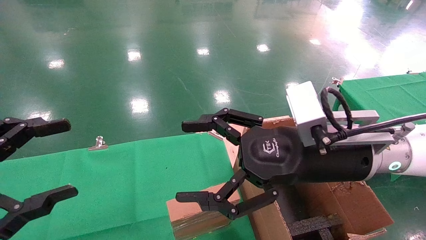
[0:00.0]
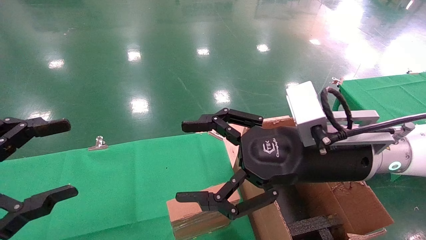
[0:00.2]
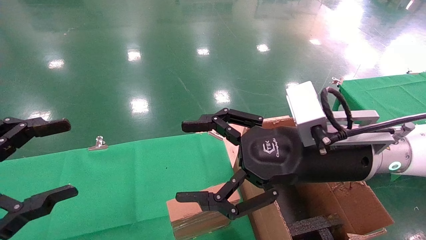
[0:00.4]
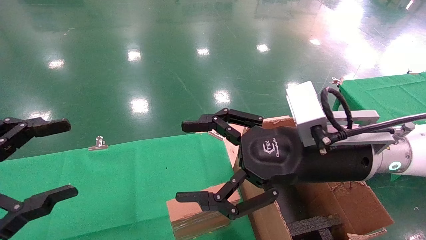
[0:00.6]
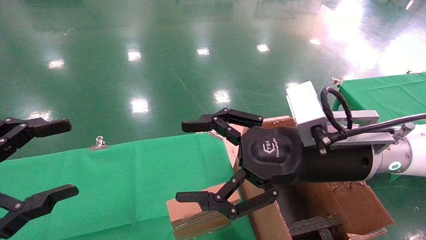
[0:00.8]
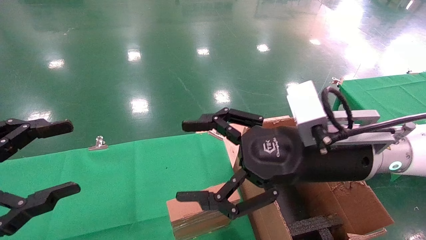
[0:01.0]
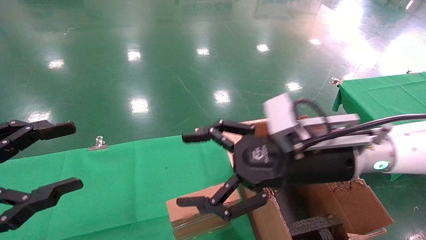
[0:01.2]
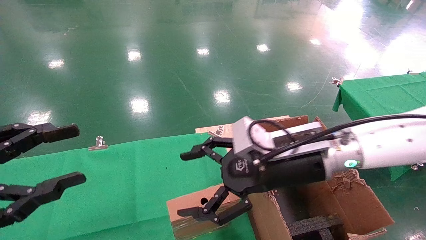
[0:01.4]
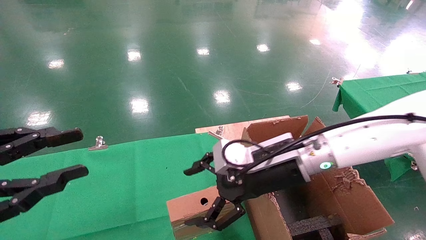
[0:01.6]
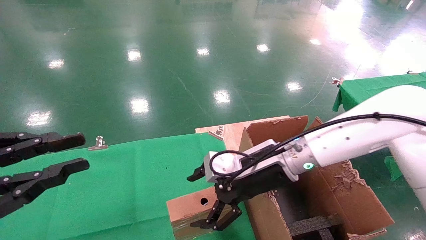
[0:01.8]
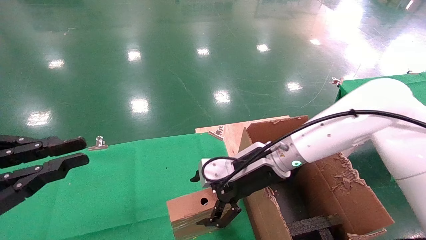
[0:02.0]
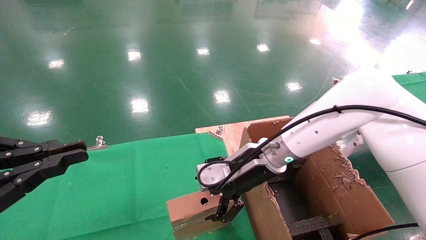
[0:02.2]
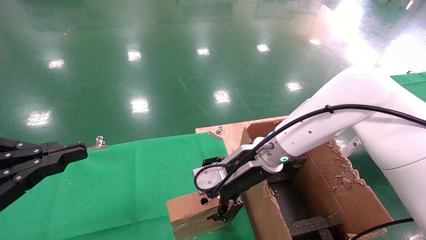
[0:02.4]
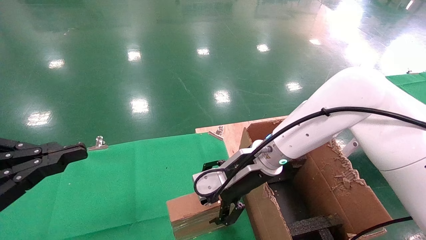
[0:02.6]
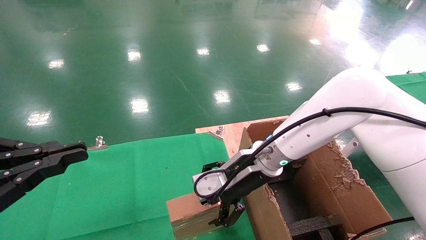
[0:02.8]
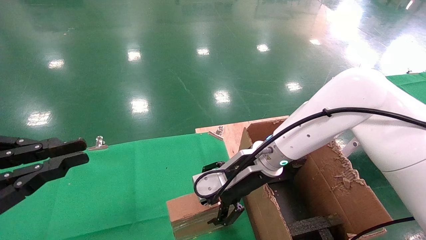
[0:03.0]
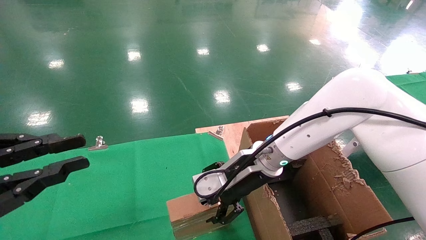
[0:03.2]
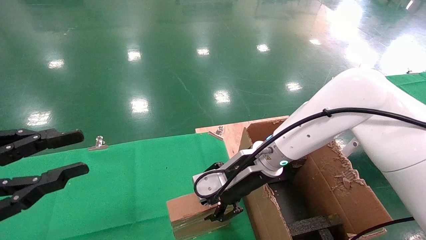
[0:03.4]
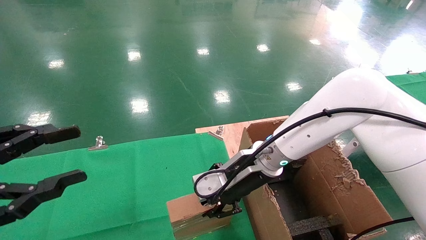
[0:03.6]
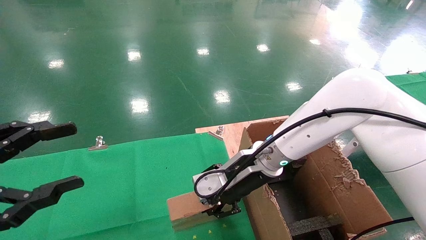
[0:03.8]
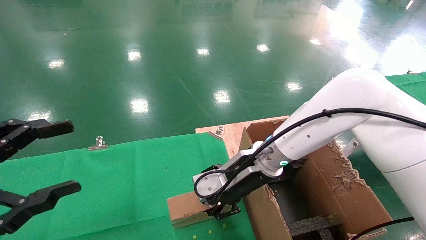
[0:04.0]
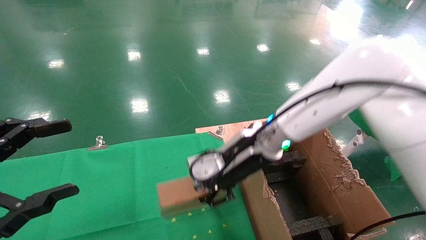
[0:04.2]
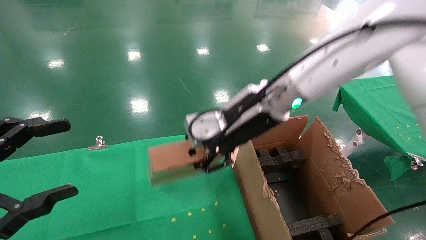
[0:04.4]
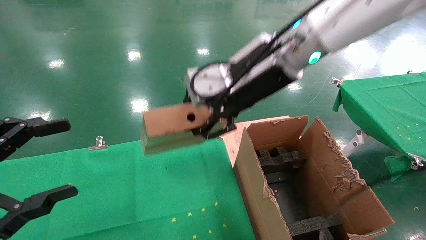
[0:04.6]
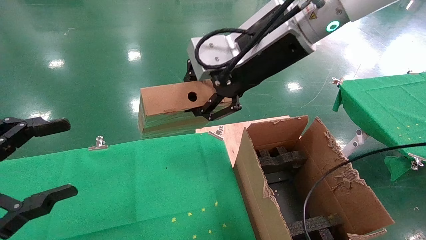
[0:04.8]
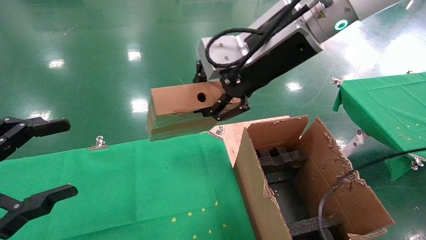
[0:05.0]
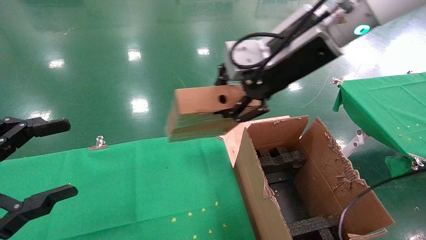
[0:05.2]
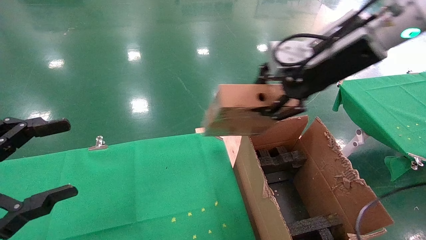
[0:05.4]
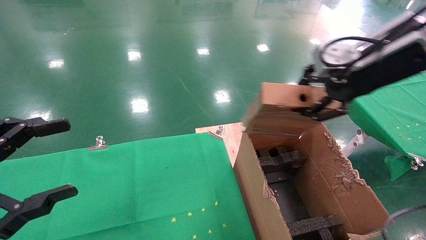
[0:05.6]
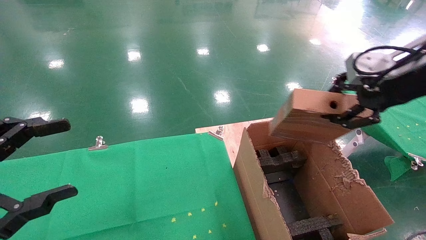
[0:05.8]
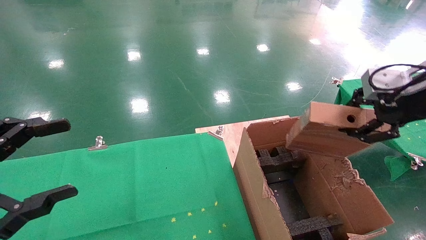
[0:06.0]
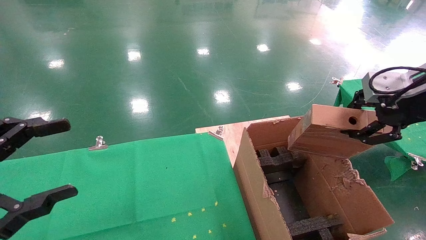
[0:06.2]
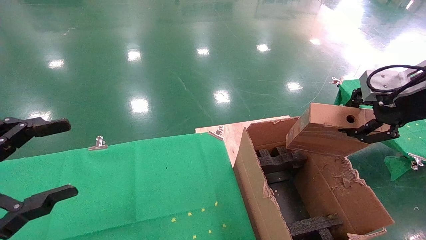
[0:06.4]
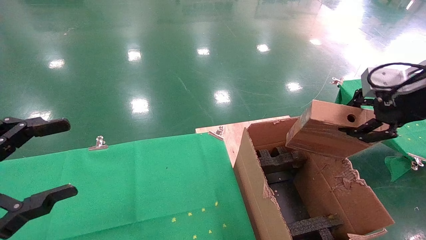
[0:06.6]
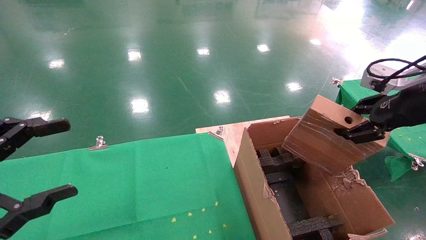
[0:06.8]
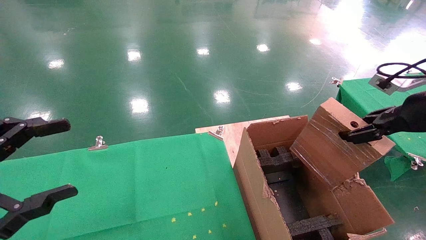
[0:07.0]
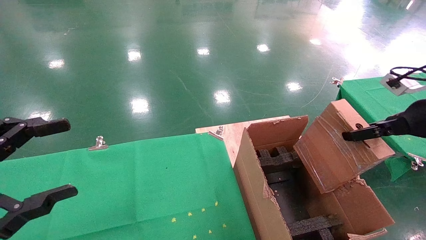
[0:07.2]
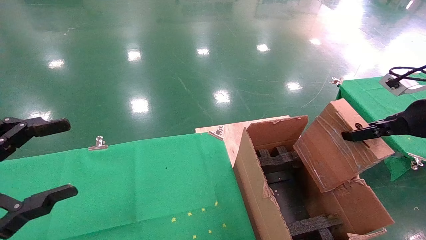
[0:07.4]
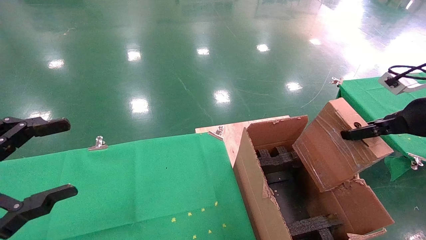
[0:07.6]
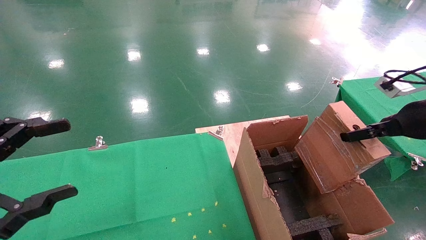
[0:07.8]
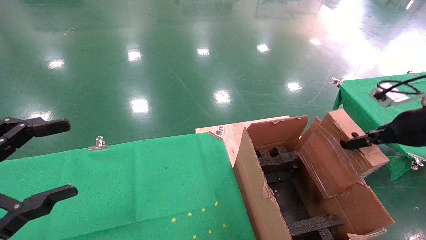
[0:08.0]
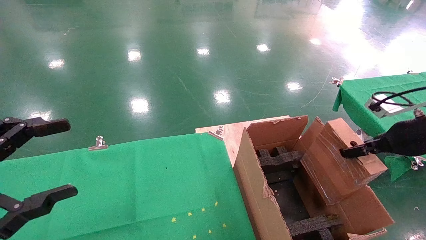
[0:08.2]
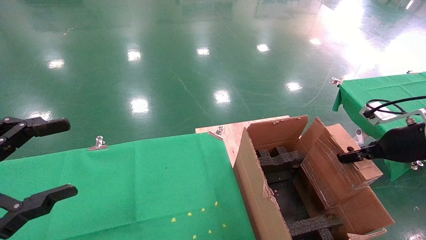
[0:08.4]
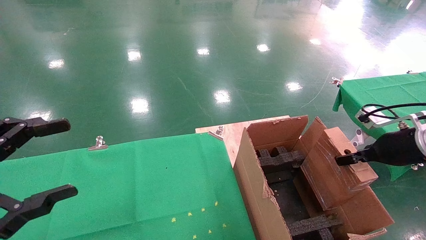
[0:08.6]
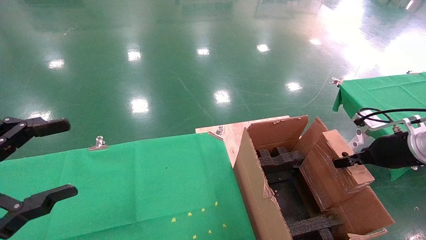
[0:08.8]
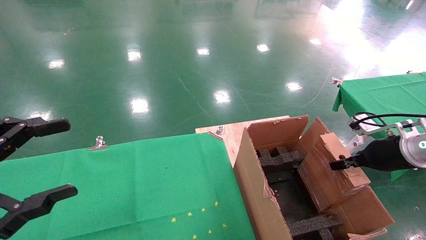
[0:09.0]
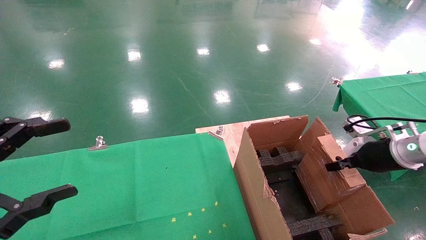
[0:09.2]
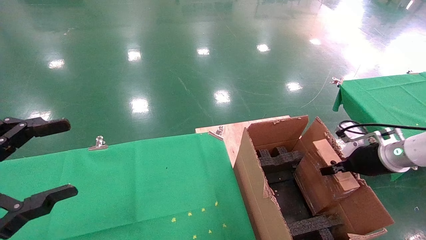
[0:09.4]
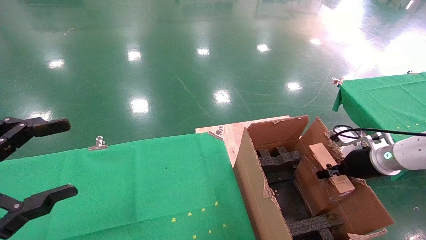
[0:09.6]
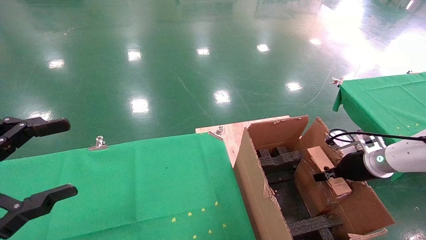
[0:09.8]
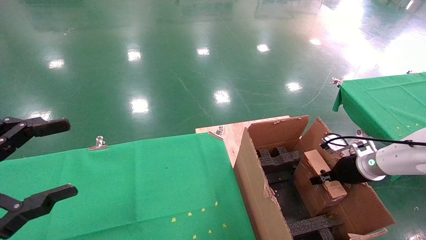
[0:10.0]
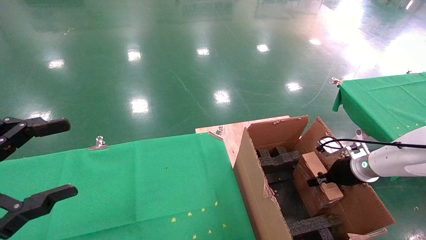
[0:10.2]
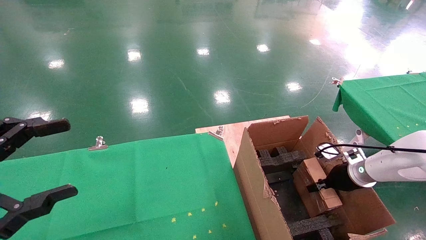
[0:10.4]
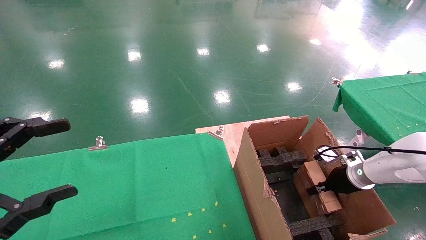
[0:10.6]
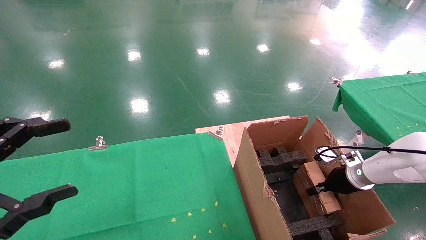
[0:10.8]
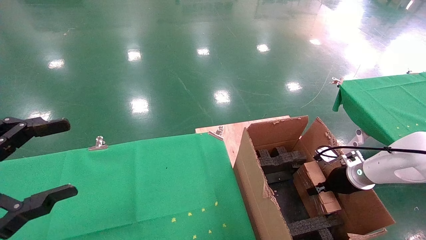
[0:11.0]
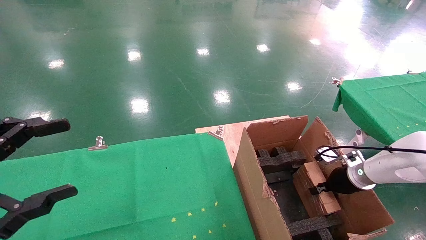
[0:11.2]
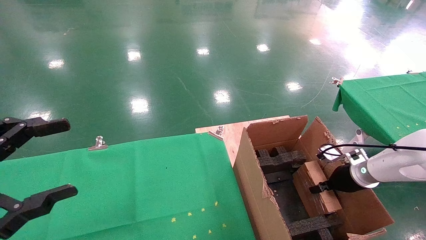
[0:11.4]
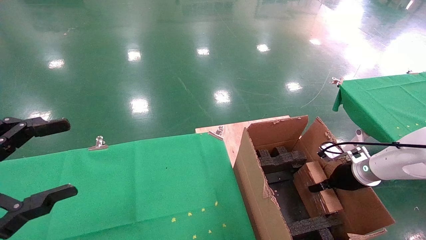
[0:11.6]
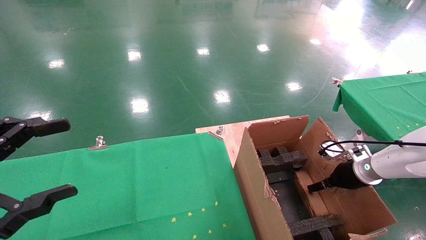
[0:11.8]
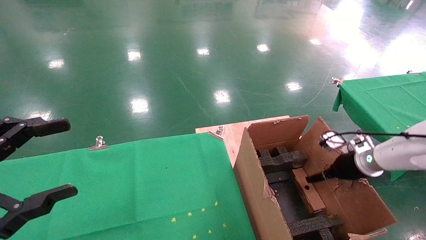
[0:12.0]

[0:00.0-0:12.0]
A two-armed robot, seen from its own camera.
Task of the whole recording: using a robotic arm to pick up a cardboard box and palace it the carton.
Step, 0:01.4 to 0:03.8: Pick up the mouse and the power cord paper box.
Step, 0:04.0 to 0:12.0: Place the mouse and the power cord paper box into the container.
0:00.0 to 0:01.6: The right gripper goes roughly 10 cm forward and downward, while the left gripper closes.
0:01.6 to 0:03.0: The left gripper closes its fingers. Meanwhile the right gripper moves some 5 cm.
0:03.0 to 0:04.4: The left gripper opens. The right gripper travels upward by roughly 10 cm, and closes.
0:04.4 to 0:06.0: The right gripper shifts some 25 cm to the right.
0:06.0 to 0:07.6: The right gripper goes approximately 10 cm downward and to the right.
0:07.6 to 0:09.0: The right gripper moves downward and forward, approximately 10 cm.
0:09.0 to 0:10.4: The right gripper heads downward and forward, covering roughly 15 cm.
0:10.4 to 0:12.0: The right gripper shifts roughly 5 cm upward, and opens.

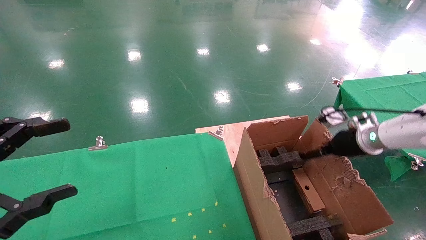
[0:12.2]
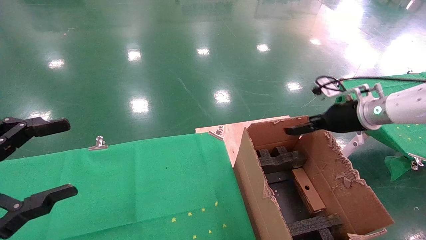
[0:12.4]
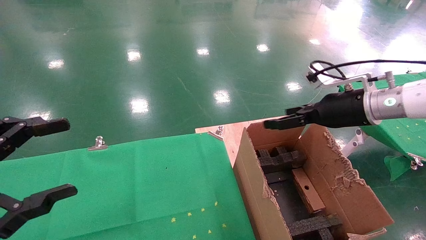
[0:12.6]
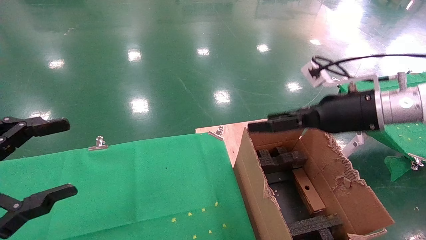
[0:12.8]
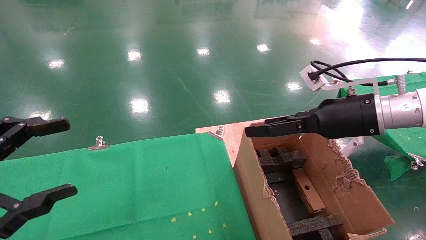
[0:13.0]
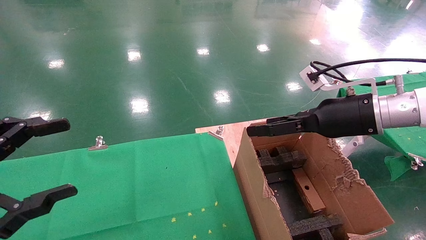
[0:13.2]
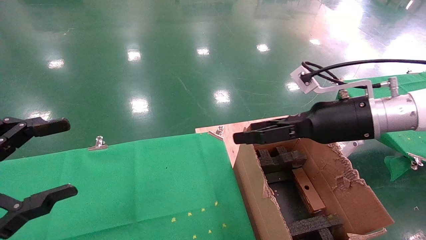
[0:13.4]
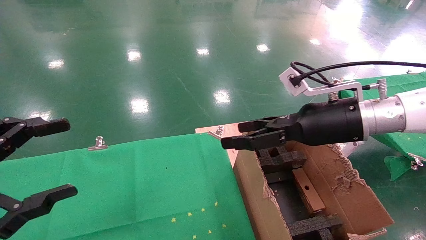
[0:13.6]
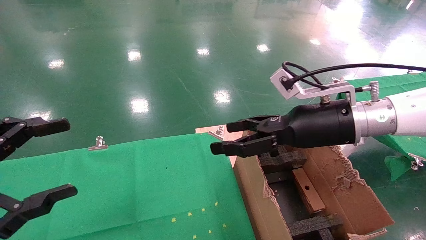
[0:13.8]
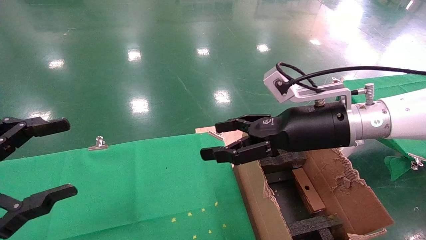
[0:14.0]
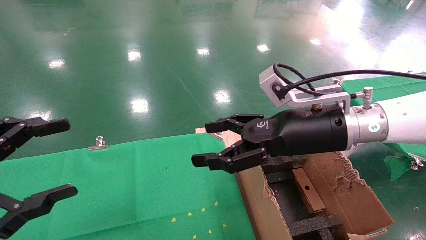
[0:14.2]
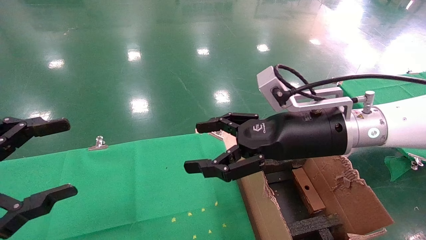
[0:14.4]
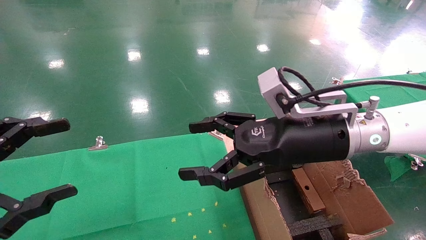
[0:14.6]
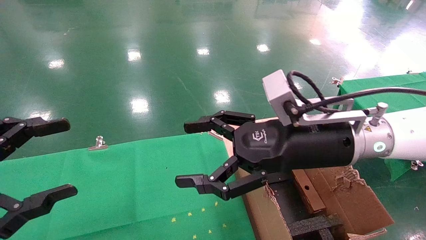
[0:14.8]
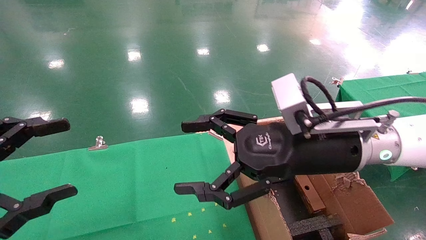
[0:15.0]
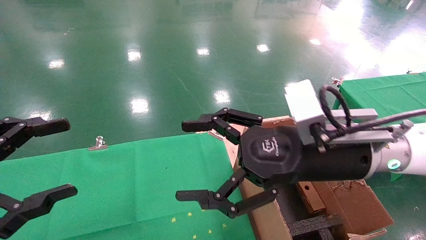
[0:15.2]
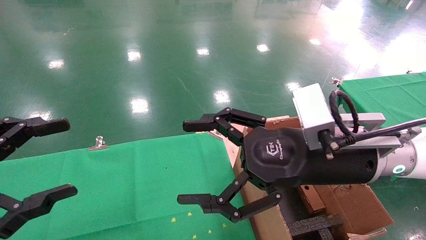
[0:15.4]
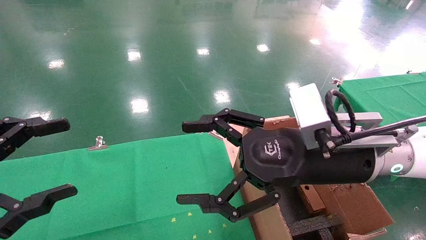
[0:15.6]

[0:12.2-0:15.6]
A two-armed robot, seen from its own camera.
Task of the whole recording: using a robotic arm to pick up a cardboard box and palace it the carton.
0:12.2 to 0:13.8: The right gripper goes roughly 20 cm to the left, upward and backward.
0:13.8 to 0:15.6: The right gripper travels backward by some 5 cm.

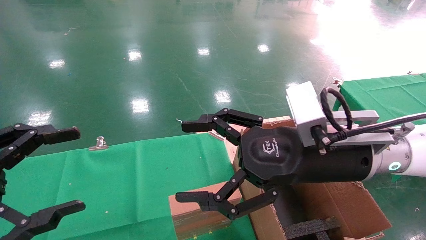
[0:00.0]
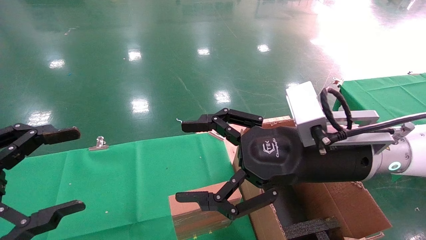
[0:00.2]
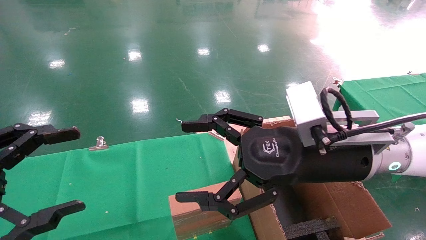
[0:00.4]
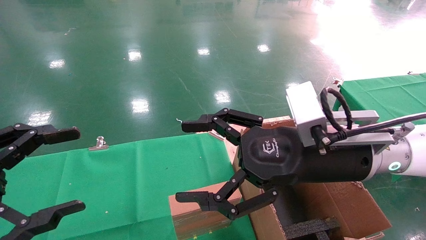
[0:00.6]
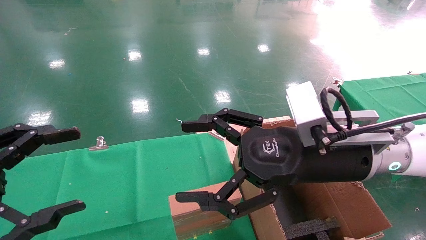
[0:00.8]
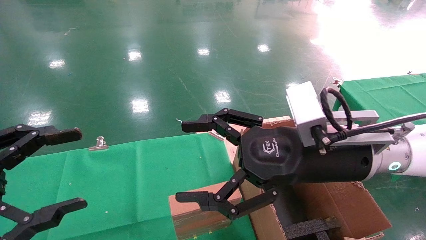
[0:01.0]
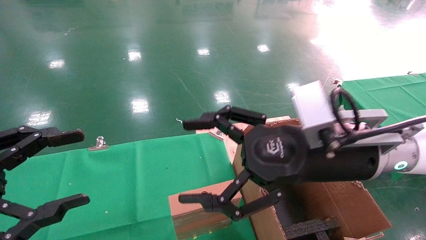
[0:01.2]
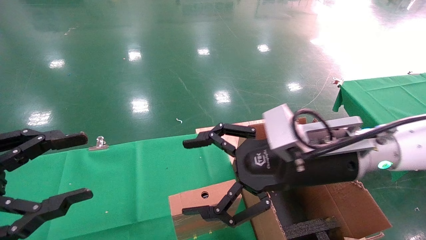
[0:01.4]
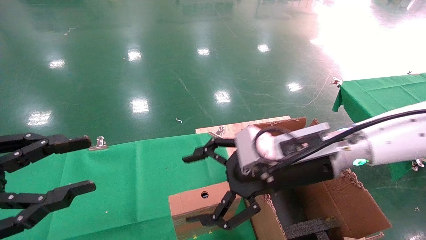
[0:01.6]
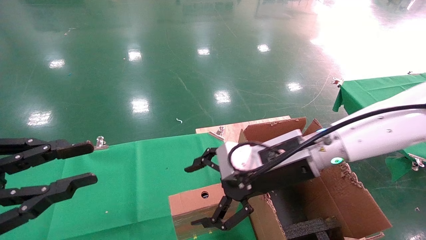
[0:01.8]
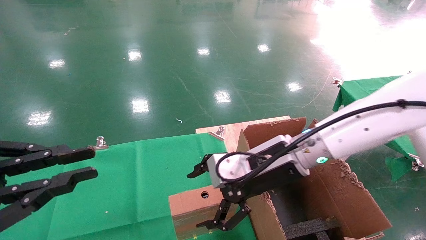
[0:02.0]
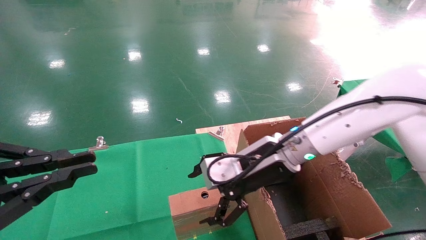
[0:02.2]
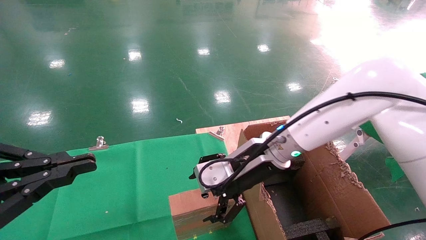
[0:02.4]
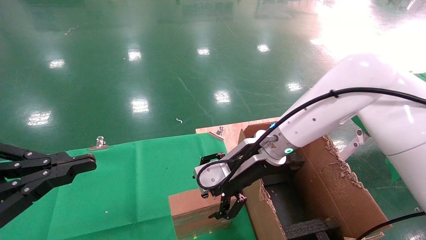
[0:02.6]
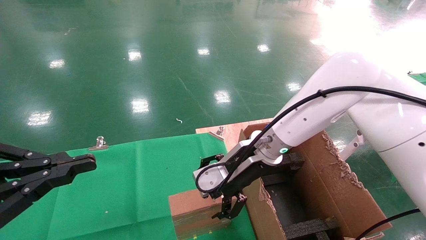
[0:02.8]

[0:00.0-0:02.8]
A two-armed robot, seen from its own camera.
Task of the whole recording: using a robotic arm to pick up a cardboard box and palace it the carton.
0:00.0 to 0:01.4: The grippers move only a little.
0:01.4 to 0:02.8: The left gripper closes up. The right gripper moves forward and to the left, roughly 10 cm.
